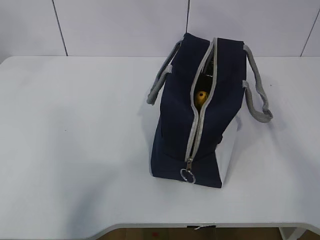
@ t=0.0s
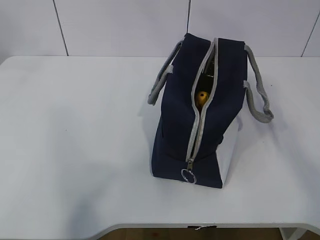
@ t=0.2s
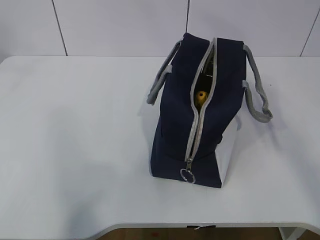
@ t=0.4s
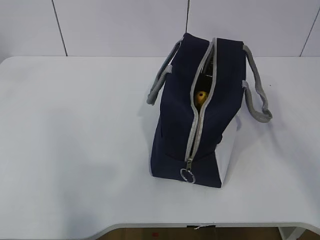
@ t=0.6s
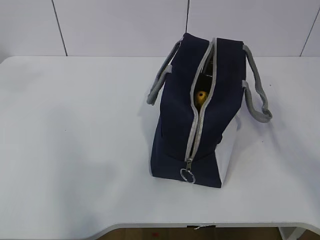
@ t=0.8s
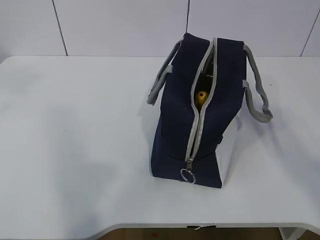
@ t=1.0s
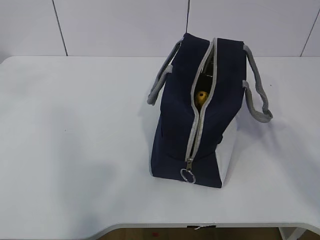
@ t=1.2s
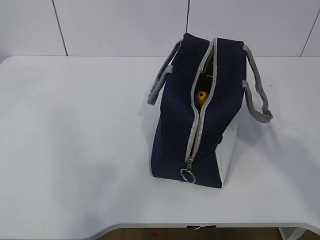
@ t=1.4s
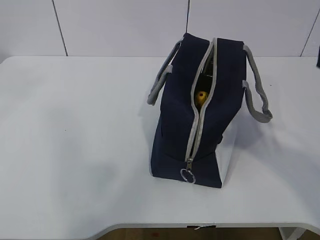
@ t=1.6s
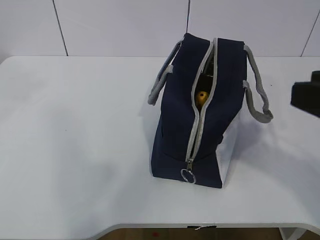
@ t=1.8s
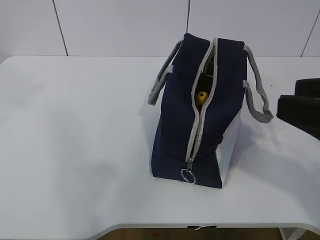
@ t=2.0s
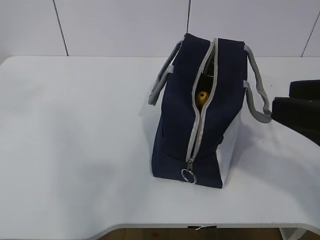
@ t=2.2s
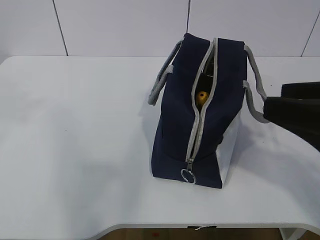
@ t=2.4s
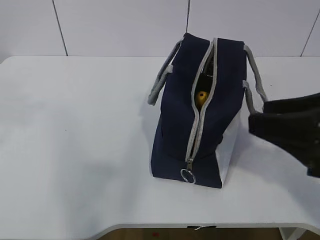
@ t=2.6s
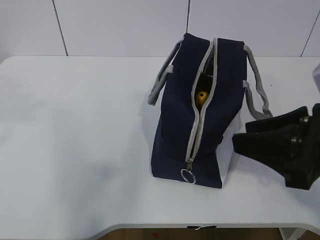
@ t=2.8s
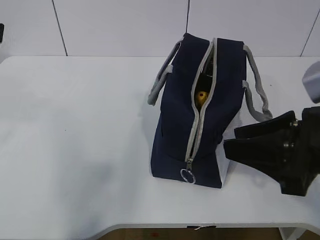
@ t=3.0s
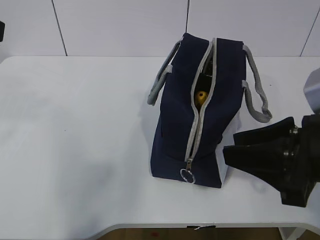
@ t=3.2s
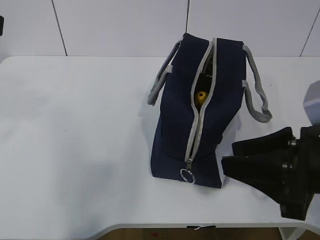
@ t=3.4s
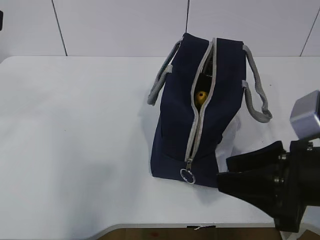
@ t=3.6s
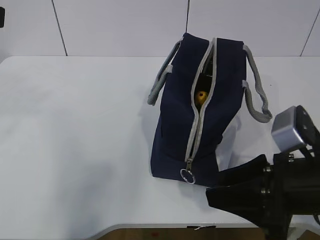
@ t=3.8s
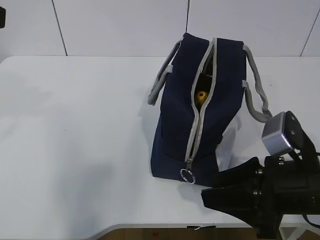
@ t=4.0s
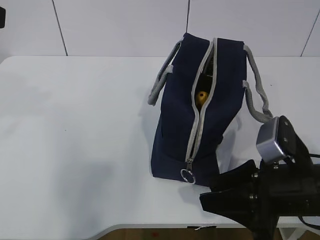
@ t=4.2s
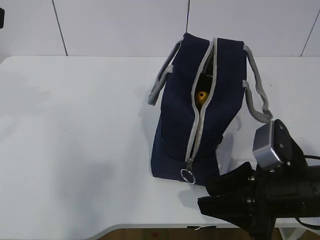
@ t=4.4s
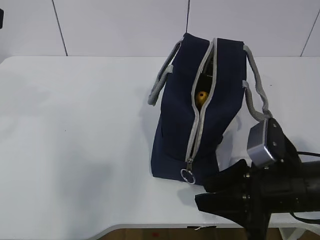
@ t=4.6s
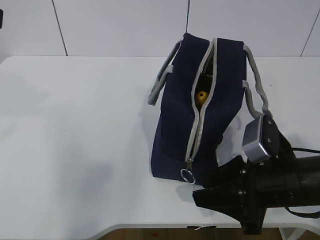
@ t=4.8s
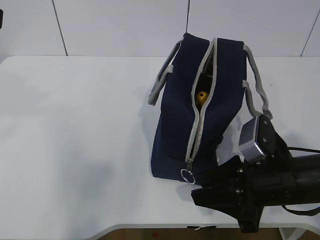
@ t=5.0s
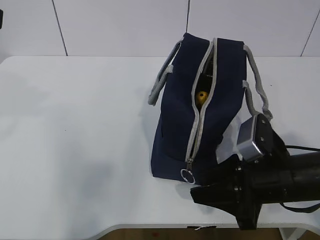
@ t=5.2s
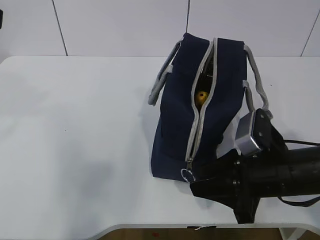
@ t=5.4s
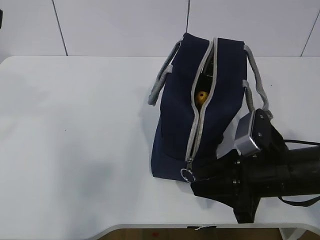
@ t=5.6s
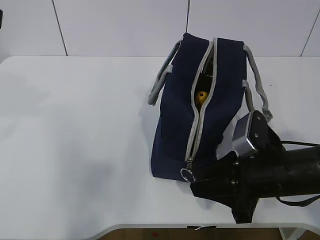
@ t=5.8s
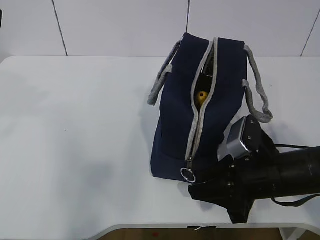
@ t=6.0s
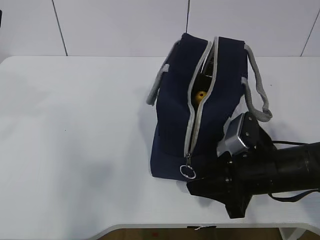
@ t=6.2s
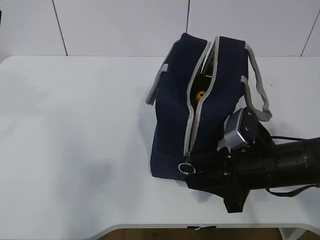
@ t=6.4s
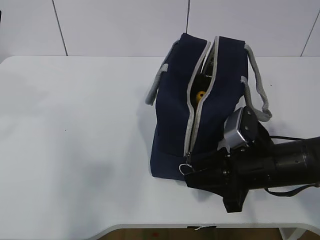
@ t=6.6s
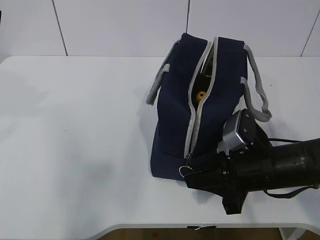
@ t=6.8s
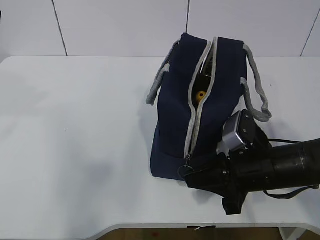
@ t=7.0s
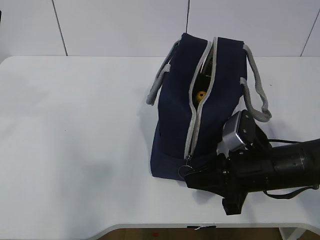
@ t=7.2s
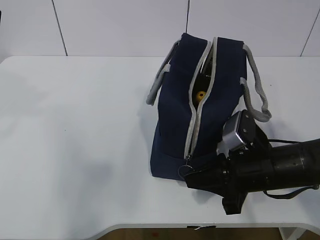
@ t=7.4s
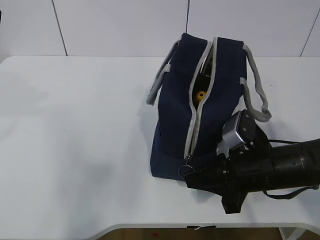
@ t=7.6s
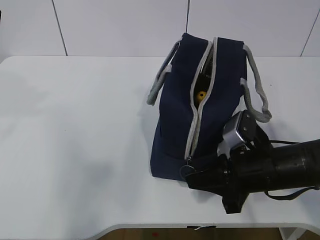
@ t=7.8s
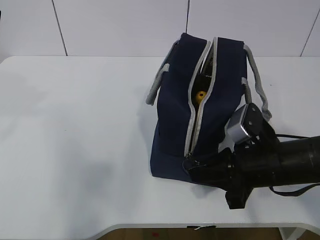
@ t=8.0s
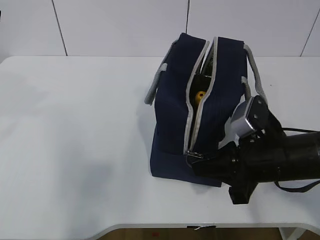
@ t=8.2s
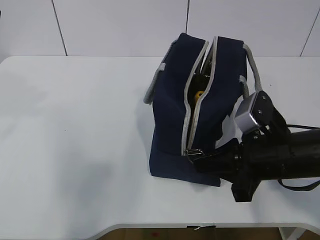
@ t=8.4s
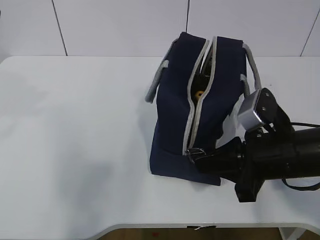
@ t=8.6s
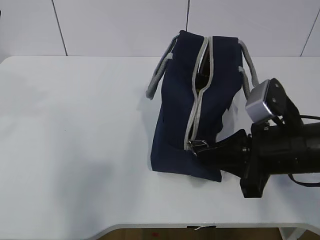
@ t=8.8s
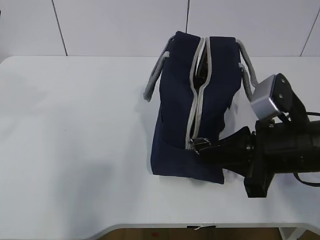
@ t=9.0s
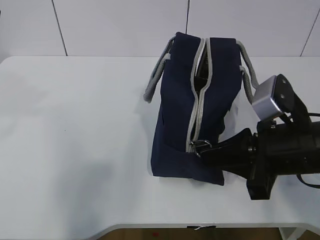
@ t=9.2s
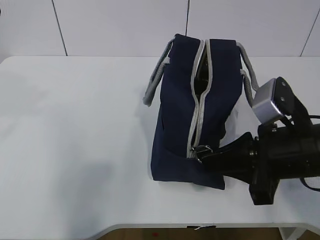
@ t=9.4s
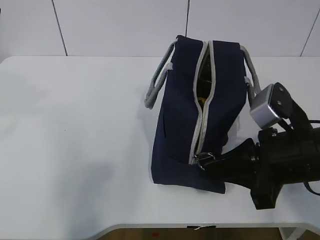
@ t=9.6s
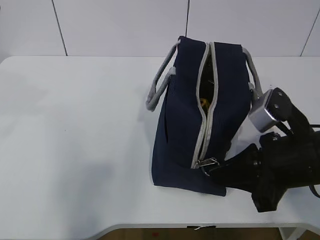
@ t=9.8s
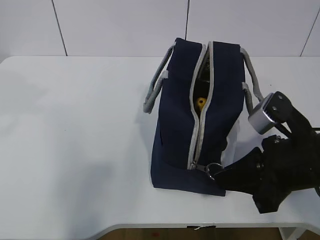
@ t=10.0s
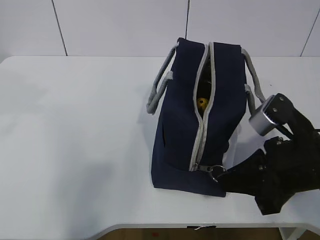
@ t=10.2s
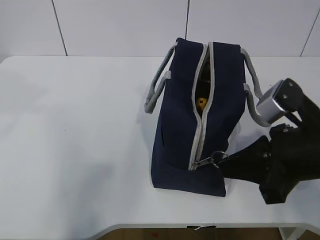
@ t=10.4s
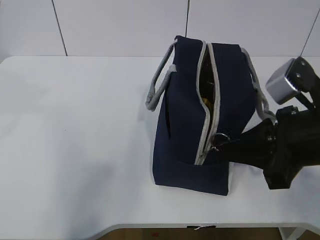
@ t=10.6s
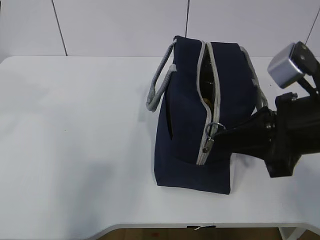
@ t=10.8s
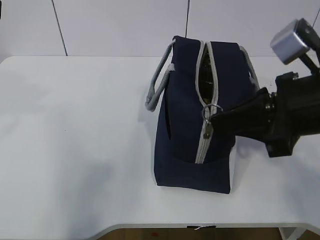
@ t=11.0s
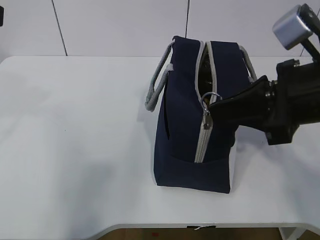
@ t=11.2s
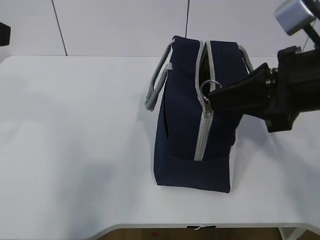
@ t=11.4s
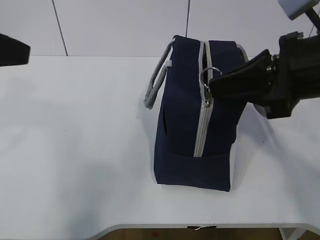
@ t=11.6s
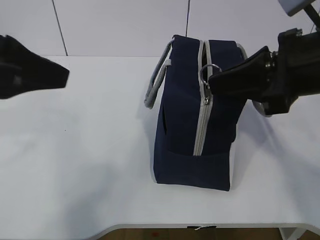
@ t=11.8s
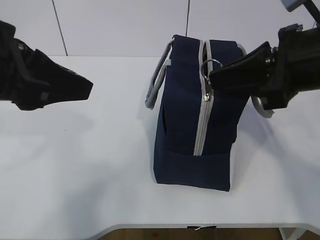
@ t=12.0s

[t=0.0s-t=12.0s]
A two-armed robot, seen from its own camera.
t=0.0s to t=1.6s: The right gripper travels downward by approximately 20 cm. The left gripper heads backward, covering approximately 5 cm.
t=1.6s to t=3.0s: The right gripper shifts some 10 cm downward and forward.
t=3.0s to t=4.4s: The right gripper is displaced downward by about 10 cm.
t=4.4s to t=6.0s: The right gripper changes place by some 5 cm.
t=6.0s to t=7.6s: The right gripper closes up.
t=7.6s to t=9.0s: The right gripper goes about 10 cm upward.
t=9.0s to t=10.4s: The grippers make only small movements.
t=10.4s to t=12.0s: The left gripper shifts some 10 cm to the right and downward. The right gripper goes some 10 cm upward.

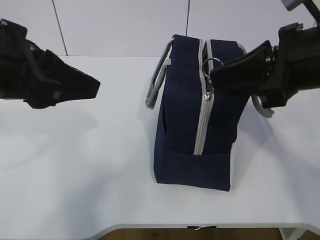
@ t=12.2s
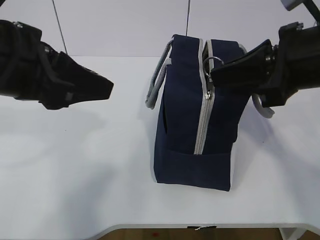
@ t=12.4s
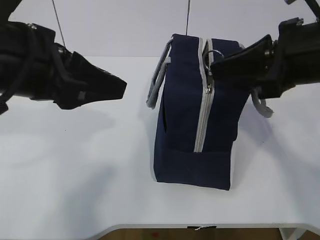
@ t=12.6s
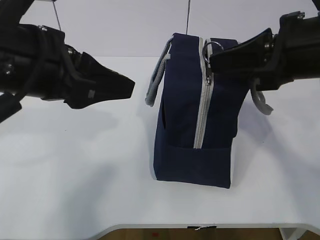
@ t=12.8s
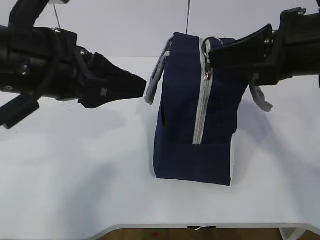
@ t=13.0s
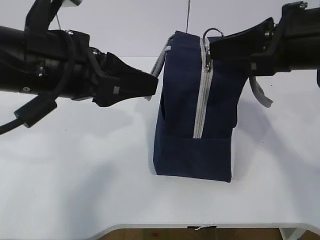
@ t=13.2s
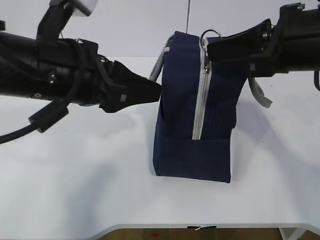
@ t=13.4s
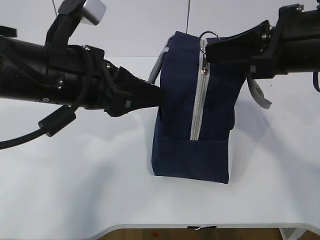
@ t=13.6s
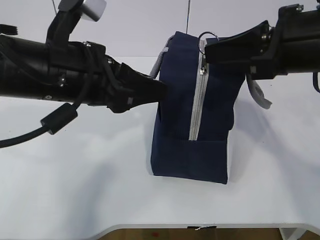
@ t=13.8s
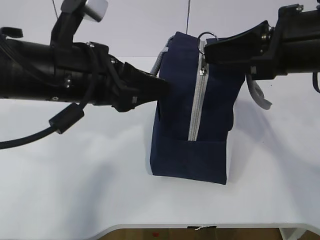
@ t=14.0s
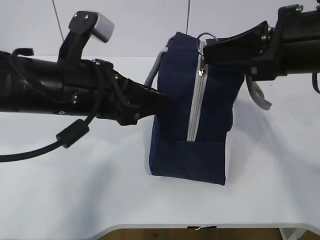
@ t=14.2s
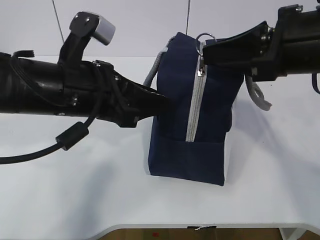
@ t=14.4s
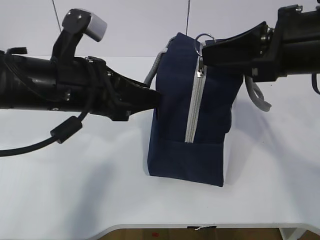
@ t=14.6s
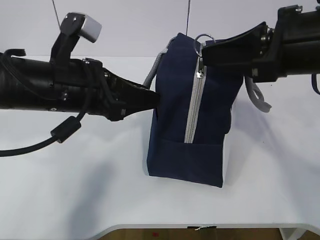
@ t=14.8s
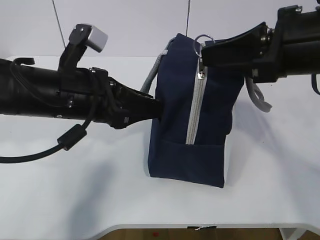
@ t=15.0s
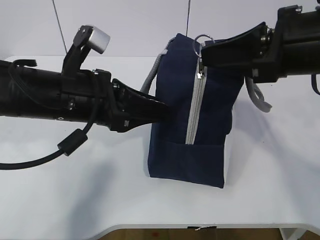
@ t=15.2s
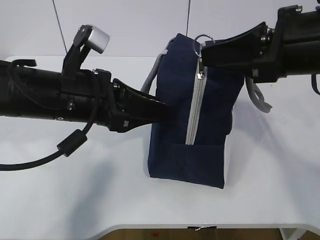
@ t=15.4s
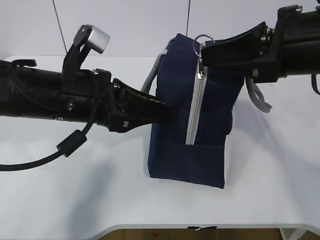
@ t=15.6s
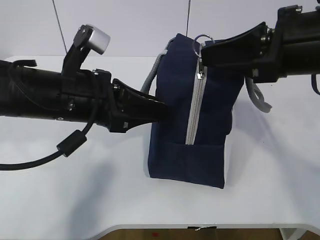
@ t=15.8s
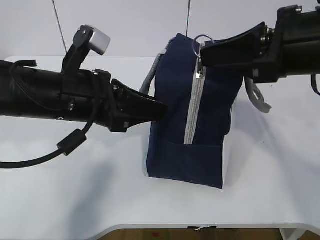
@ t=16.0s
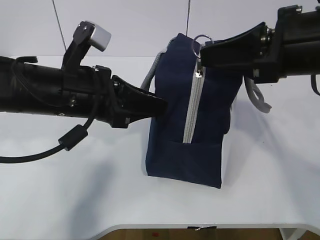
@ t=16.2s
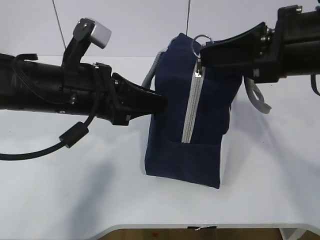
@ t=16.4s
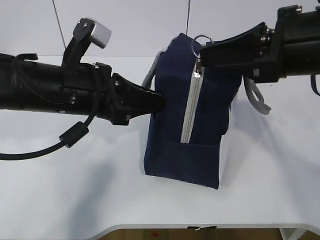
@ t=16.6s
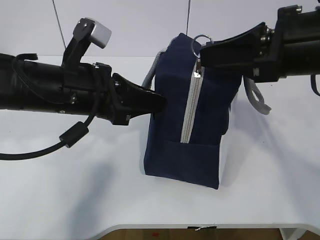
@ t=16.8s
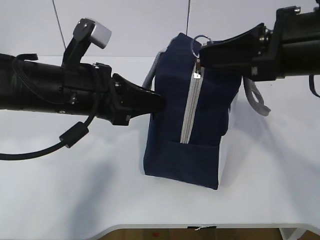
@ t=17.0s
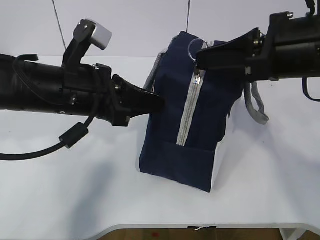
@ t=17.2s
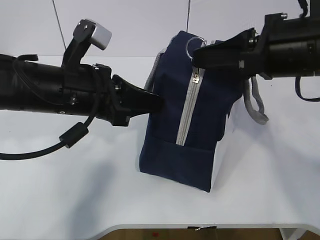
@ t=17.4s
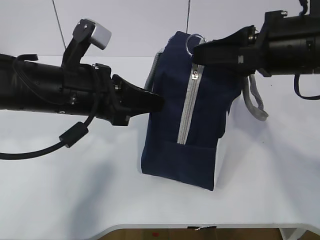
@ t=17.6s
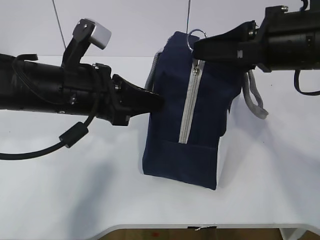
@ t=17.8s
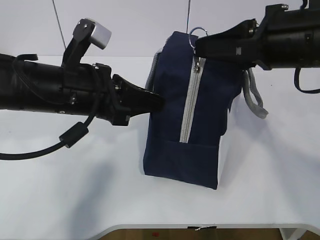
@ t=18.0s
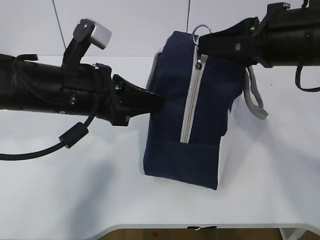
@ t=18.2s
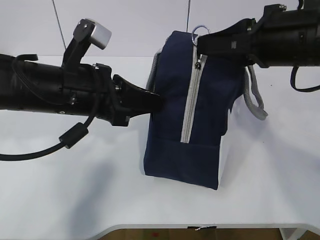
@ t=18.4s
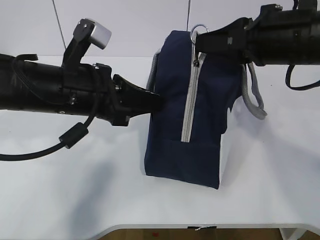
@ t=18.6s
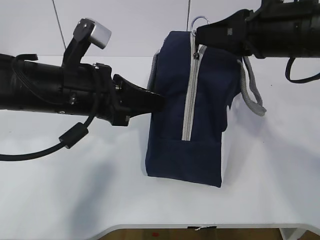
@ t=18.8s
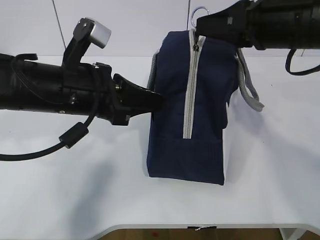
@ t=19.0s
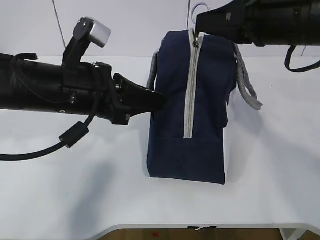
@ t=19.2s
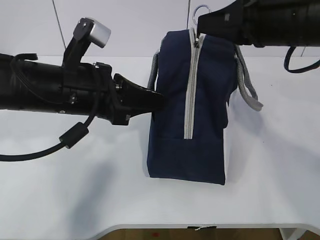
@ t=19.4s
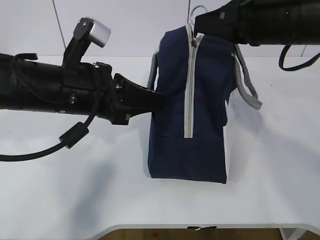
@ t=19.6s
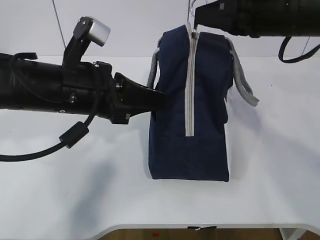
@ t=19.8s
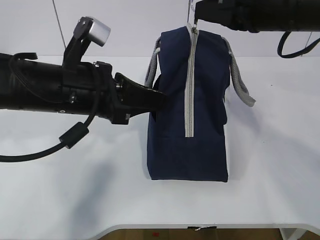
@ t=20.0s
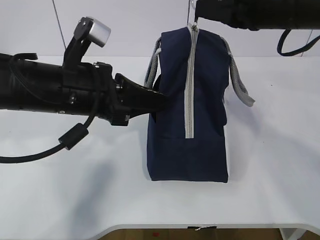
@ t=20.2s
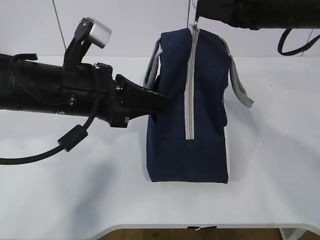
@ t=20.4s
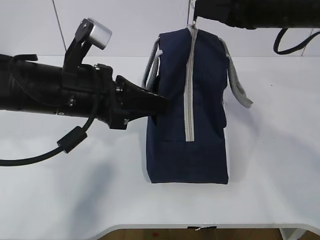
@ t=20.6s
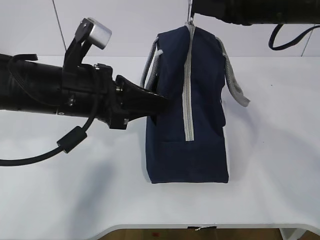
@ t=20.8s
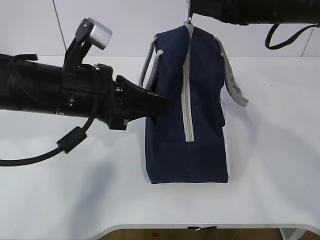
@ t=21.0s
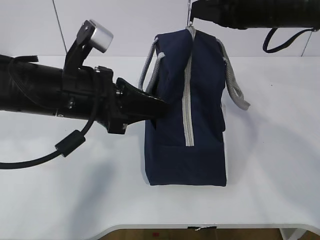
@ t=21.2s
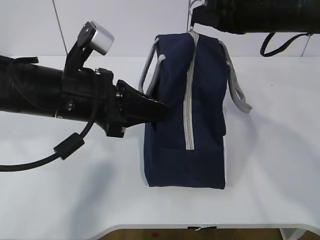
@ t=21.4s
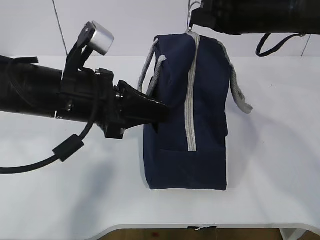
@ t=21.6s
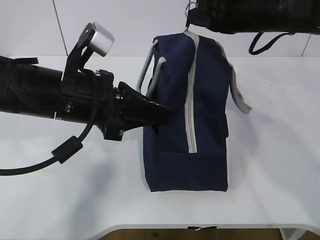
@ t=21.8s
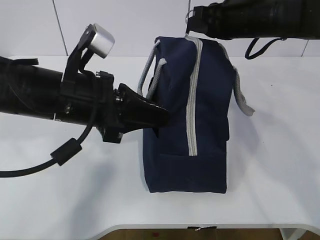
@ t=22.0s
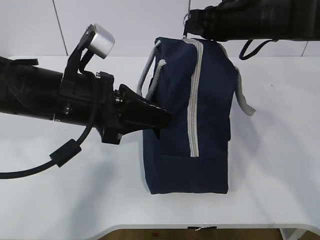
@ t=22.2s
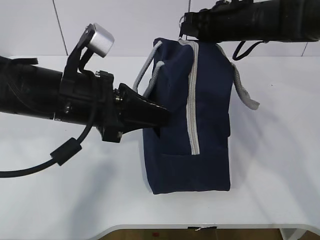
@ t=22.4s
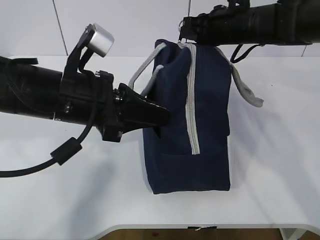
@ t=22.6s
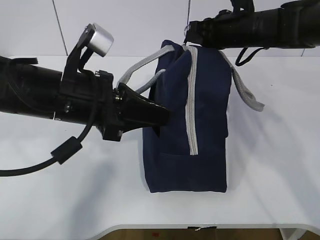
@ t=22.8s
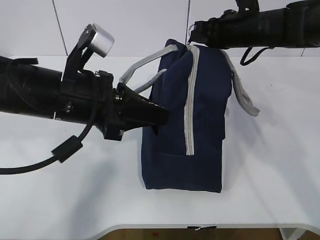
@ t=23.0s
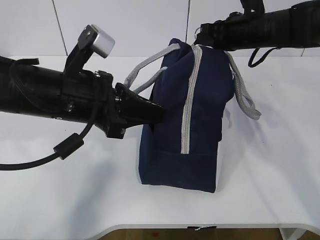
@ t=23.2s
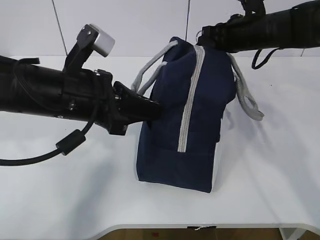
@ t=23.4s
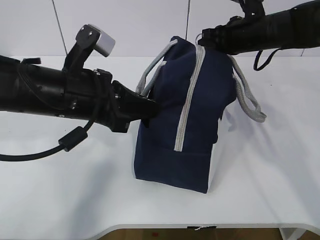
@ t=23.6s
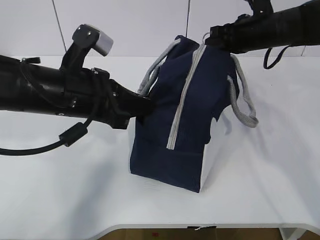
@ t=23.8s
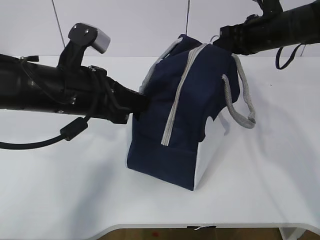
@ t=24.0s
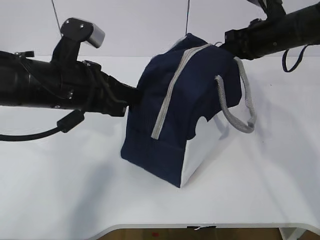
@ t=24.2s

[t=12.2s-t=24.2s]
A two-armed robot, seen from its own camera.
Step, t=12.2s to t=20.0s: Grab the lunch bag with your left hand.
t=12.2s to t=13.8s: The left gripper shifts roughly 5 cm to the right.
t=13.8s to t=15.2s: The left gripper moves some 5 cm.
t=15.2s to t=16.6s: Both grippers stay put.
t=16.6s to t=18.2s: The grippers move only a little.
t=18.2s to t=19.8s: The grippers stay close to where they were, moving slightly.
t=19.8s to t=21.2s: The grippers stay close to where they were, moving slightly.
t=21.2s to t=22.6s: The right gripper is displaced forward and downward by roughly 10 cm.
t=22.6s to t=24.2s: The right gripper moves to the right, approximately 5 cm.
